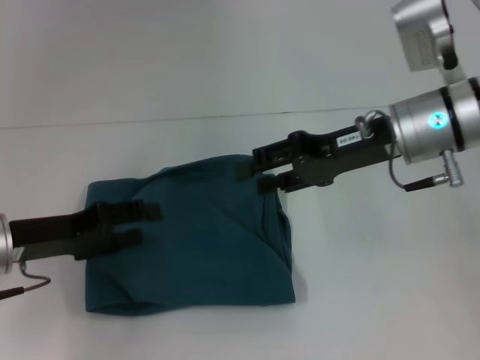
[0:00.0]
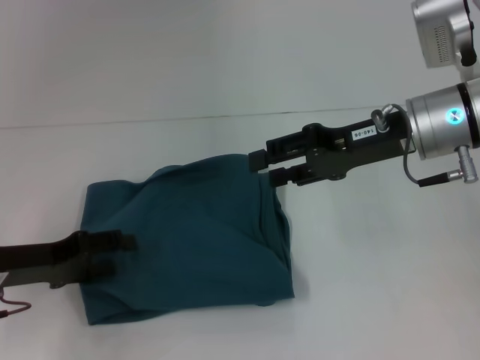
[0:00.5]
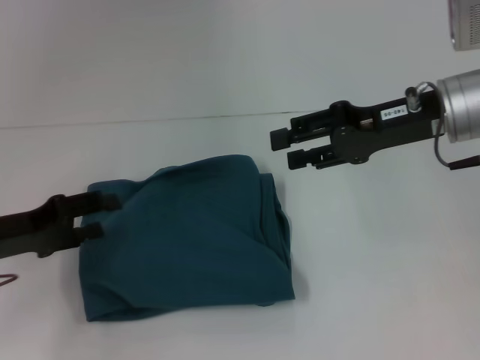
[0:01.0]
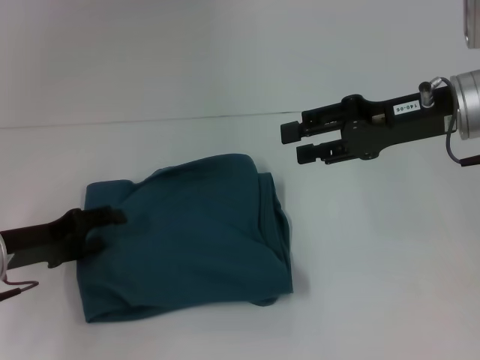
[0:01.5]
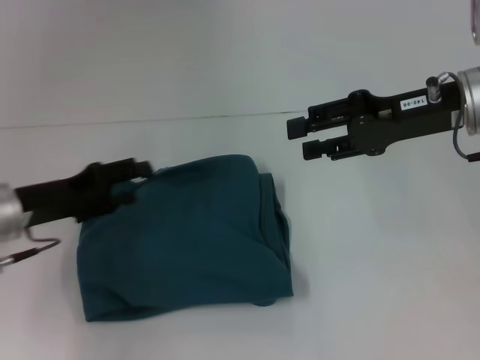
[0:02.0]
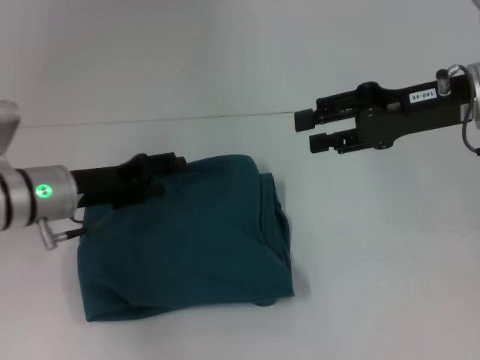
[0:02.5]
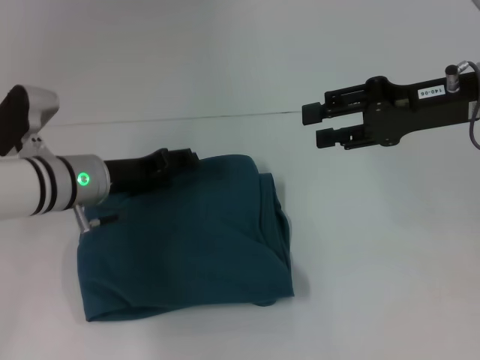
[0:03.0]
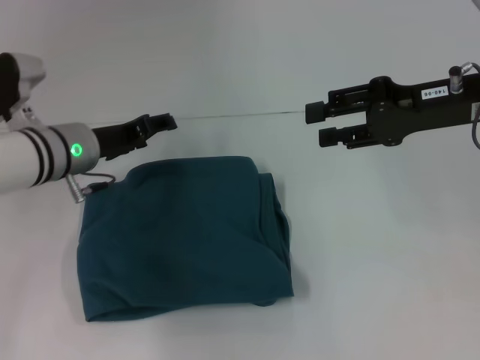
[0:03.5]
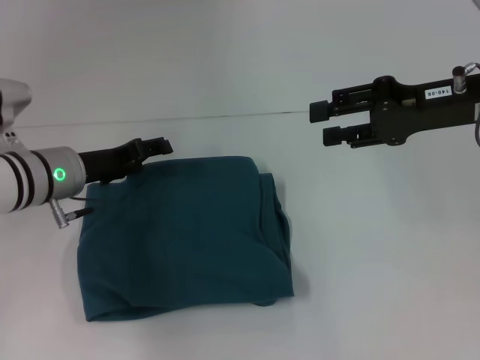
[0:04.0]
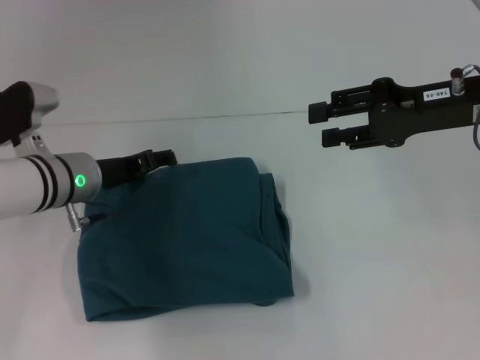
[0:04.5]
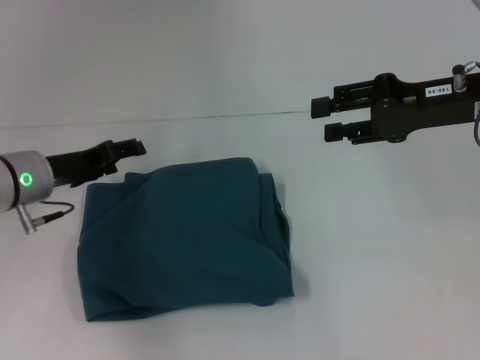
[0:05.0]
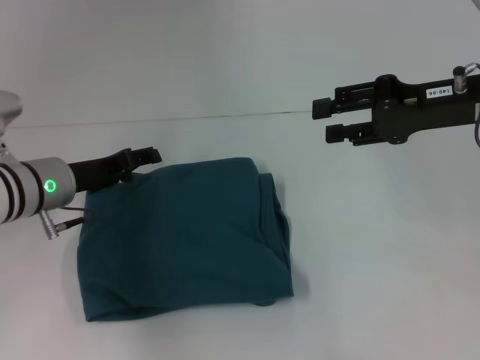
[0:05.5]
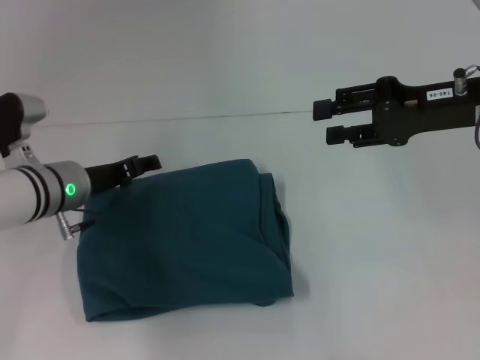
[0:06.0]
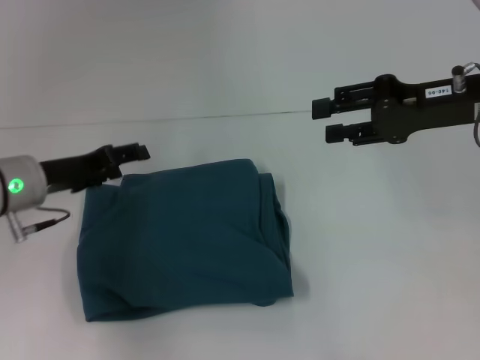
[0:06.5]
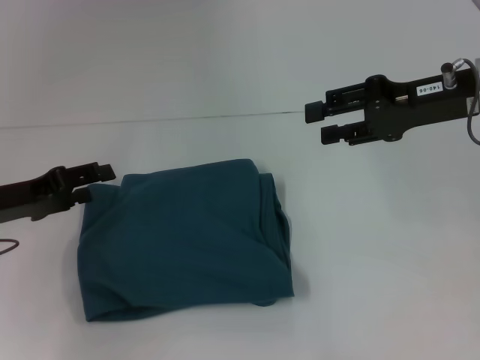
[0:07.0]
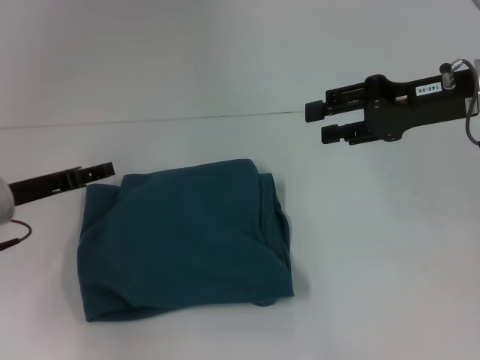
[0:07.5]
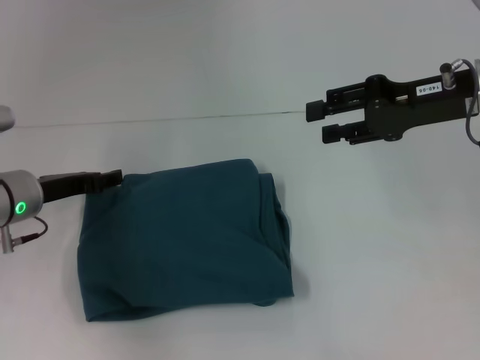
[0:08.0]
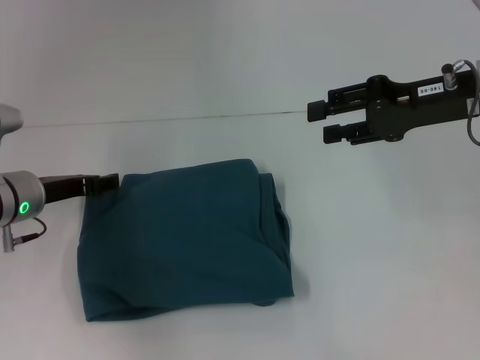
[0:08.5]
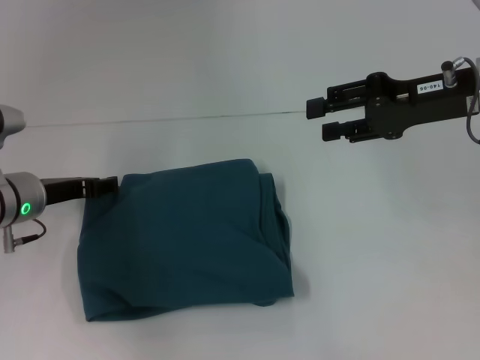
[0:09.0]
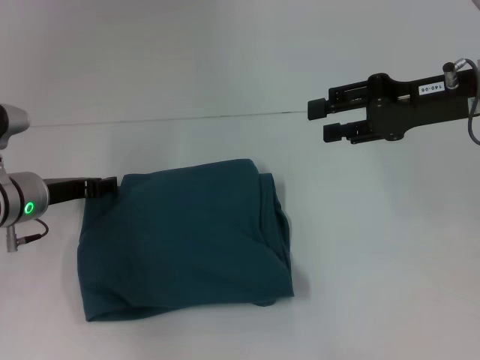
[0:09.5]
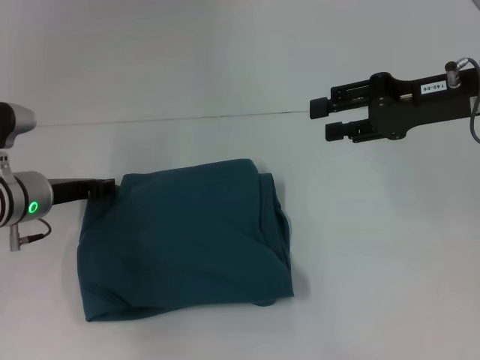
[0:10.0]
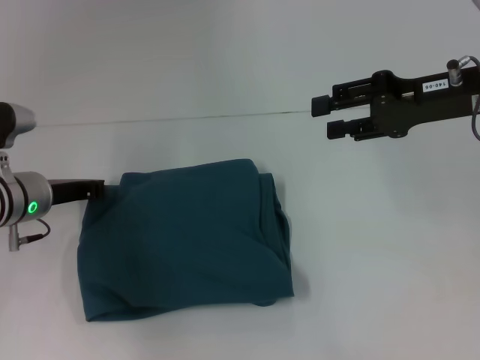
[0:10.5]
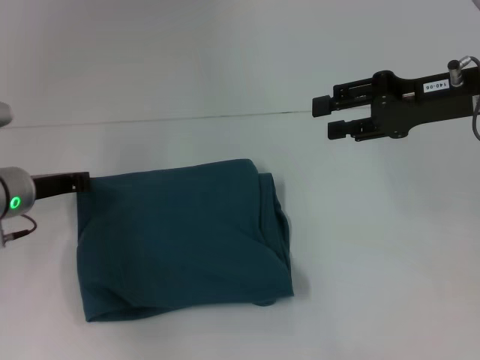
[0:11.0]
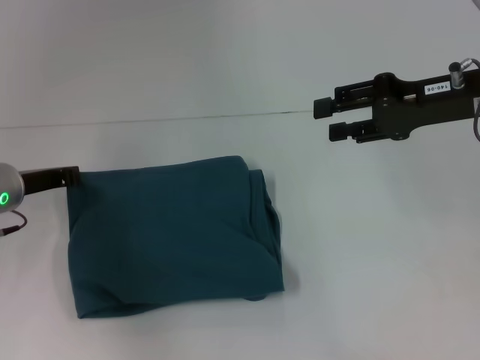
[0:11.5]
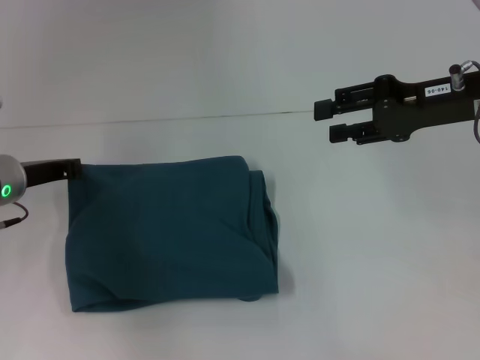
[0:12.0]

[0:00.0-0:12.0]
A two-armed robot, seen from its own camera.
0:00.0 to 0:02.0: The right gripper heads to the right, covering roughly 5 cm.
0:02.0 to 0:04.0: The left gripper moves forward and to the right, roughly 10 cm.
0:04.0 to 0:06.0: The grippers stay close to where they were, moving slightly.
0:08.0 to 0:10.0: The grippers stay close to where they were, moving slightly.
0:10.0 to 0:12.0: The left gripper closes up.

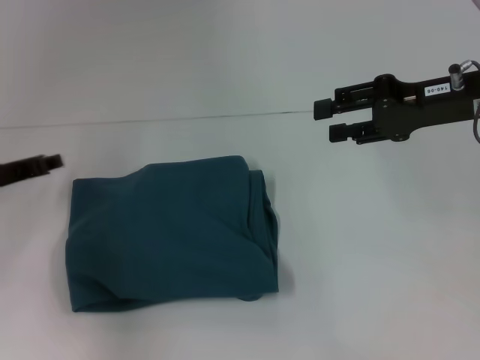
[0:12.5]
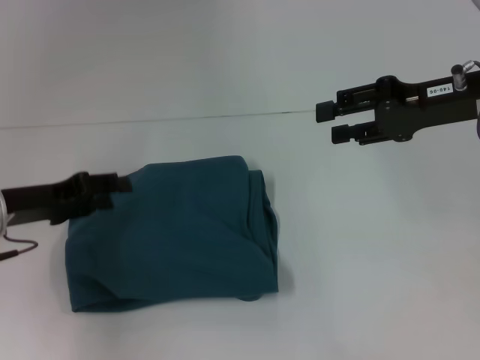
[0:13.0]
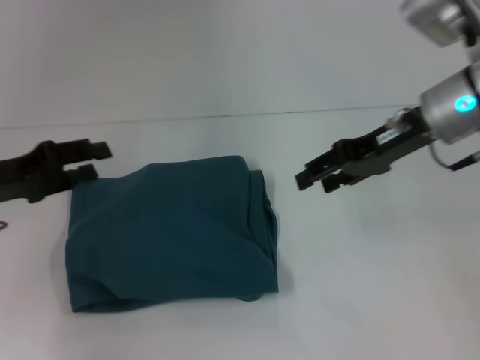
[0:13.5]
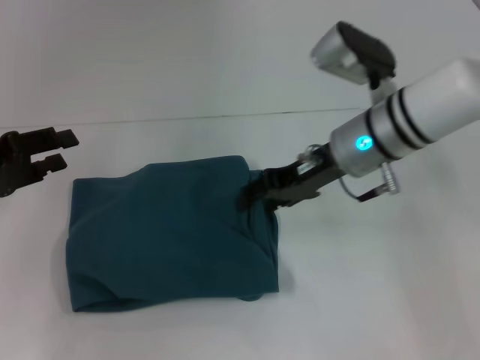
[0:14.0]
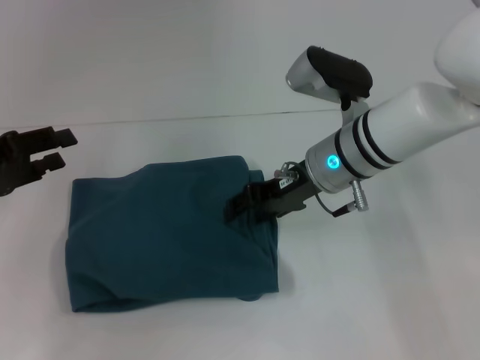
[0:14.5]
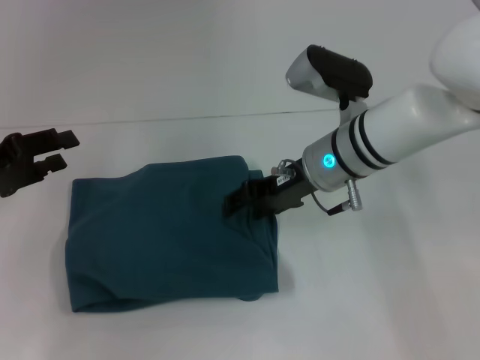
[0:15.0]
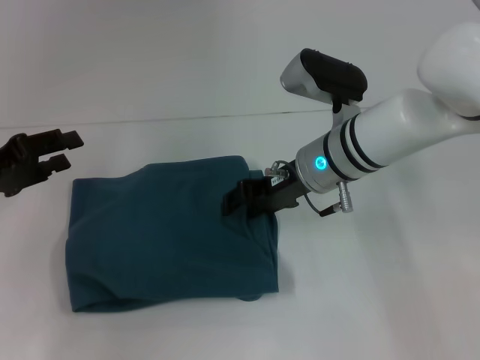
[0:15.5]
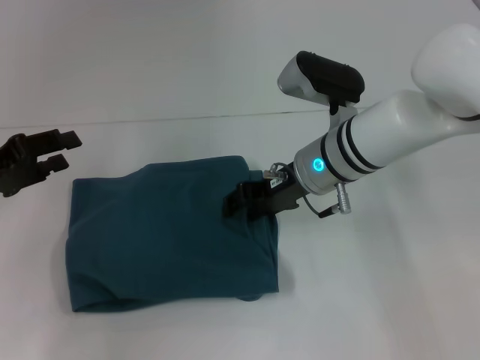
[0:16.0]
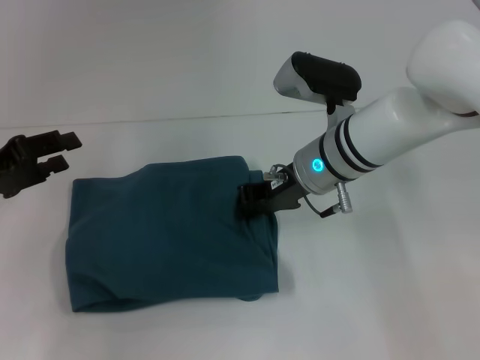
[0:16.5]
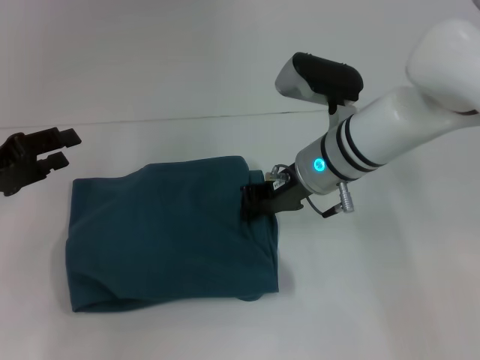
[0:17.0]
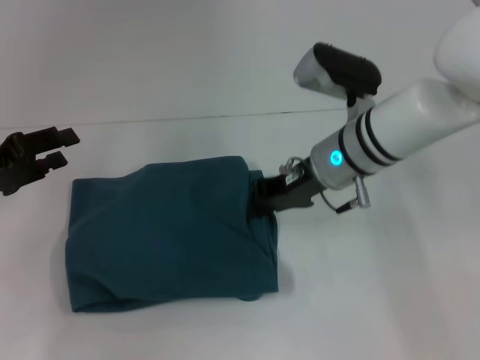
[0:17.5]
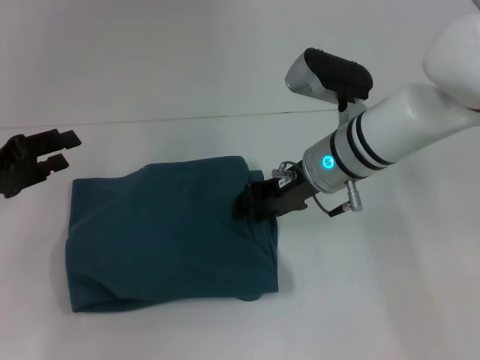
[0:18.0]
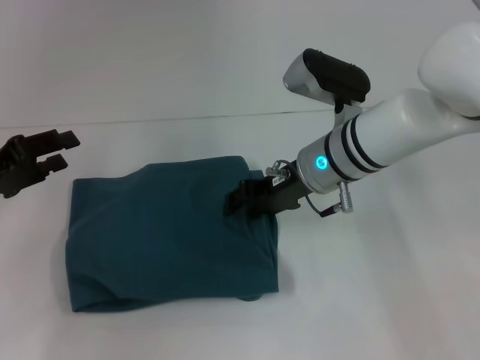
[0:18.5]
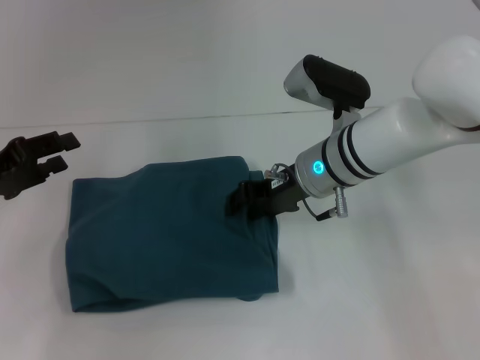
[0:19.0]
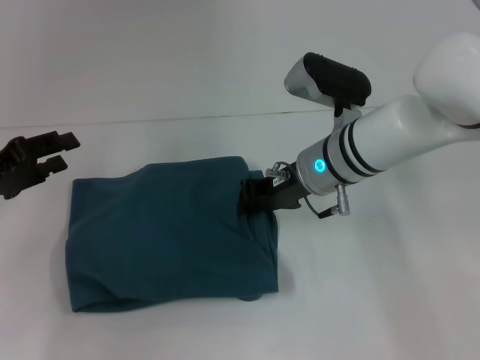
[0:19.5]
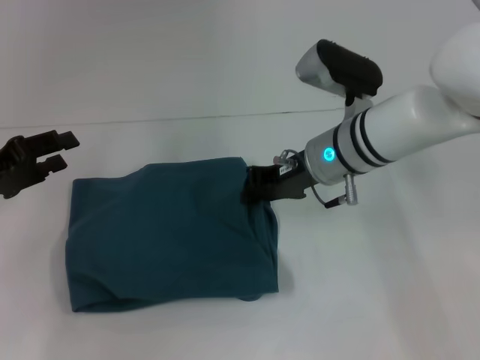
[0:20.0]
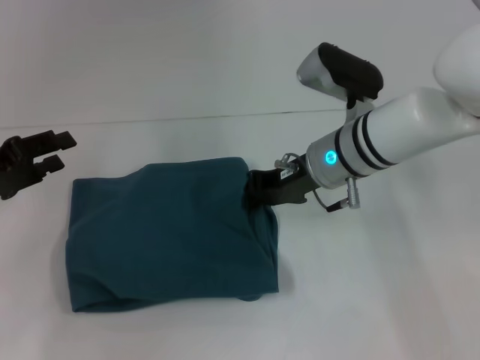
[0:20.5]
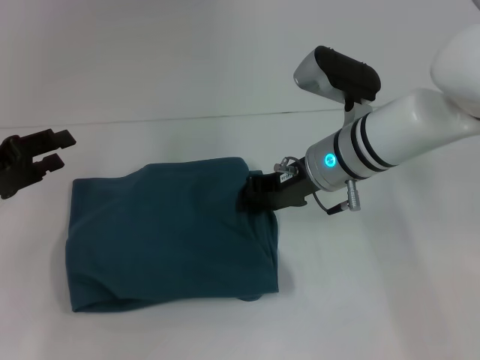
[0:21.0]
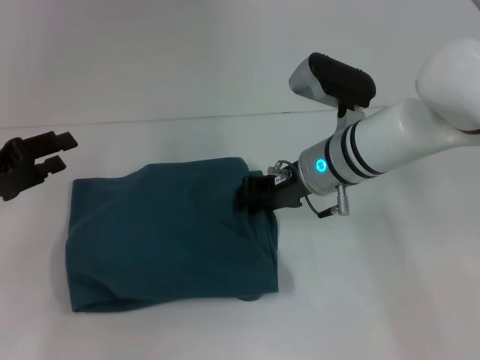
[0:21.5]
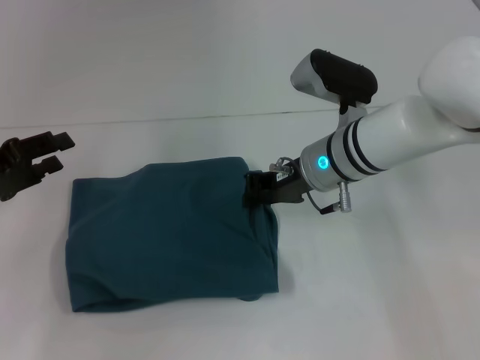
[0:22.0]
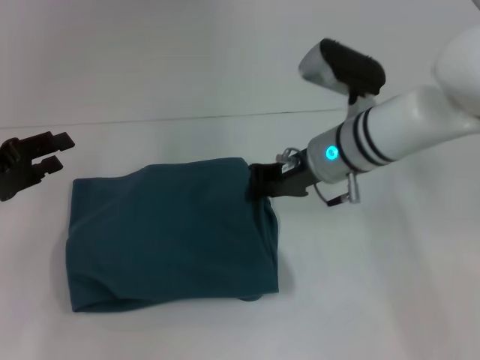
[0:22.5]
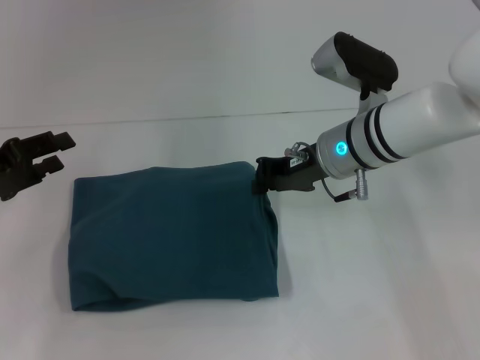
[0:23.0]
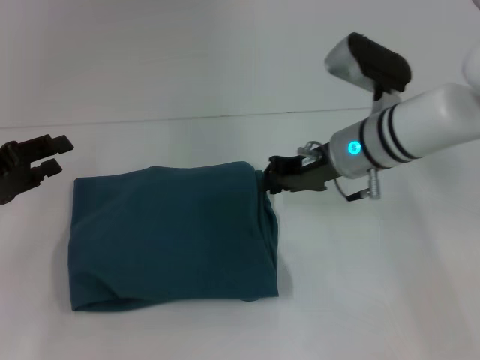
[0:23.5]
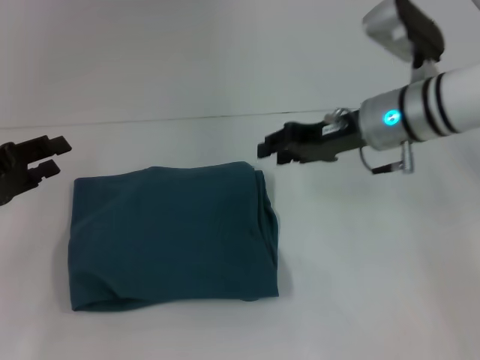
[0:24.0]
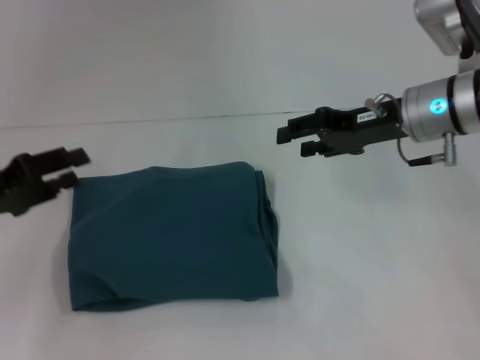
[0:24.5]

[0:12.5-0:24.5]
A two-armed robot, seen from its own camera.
0:12.5 to 0:14.5: The left gripper shifts by about 5 cm, and opens up. The right gripper travels to the left and downward by about 15 cm.
0:14.5 to 0:16.5: The right gripper closes its fingers.
0:16.5 to 0:18.5: The grippers make only small movements.
0:18.5 to 0:20.5: The right gripper closes up.
0:20.5 to 0:22.5: Both grippers stay about where they are.
0:22.5 to 0:24.5: The right gripper travels to the right by about 10 cm, and opens up.

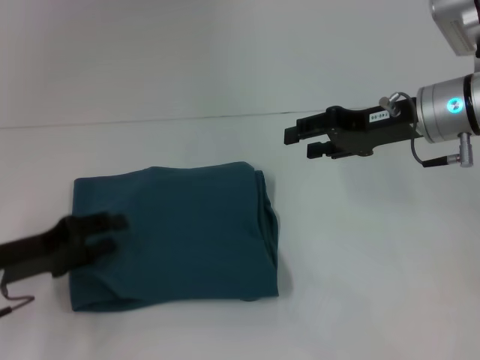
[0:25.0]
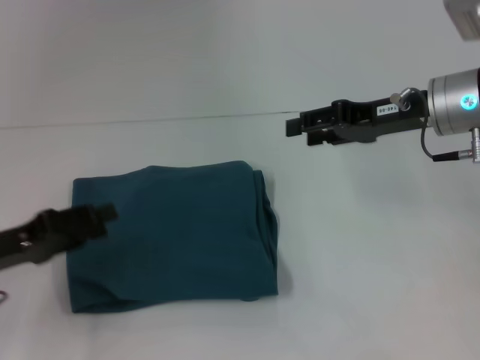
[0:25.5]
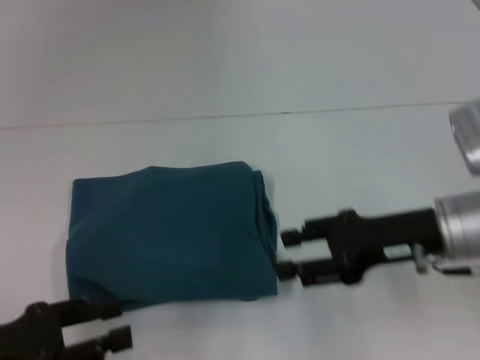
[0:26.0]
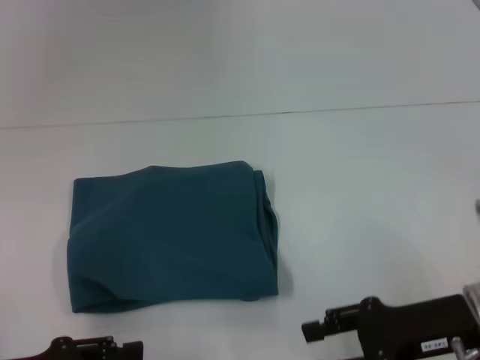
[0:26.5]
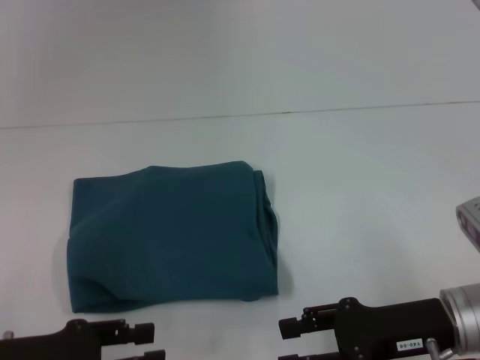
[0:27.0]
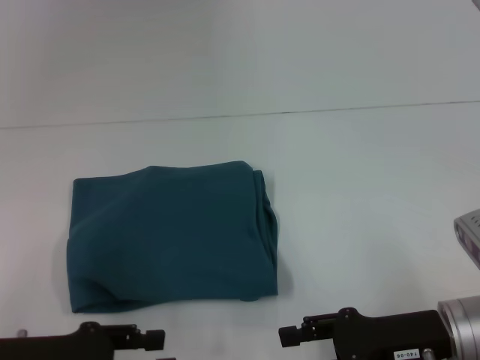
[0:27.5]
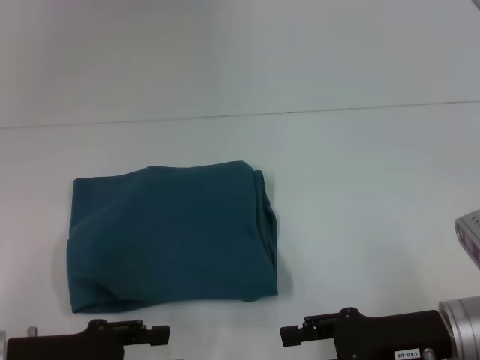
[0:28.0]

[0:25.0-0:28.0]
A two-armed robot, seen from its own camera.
0:25.0 to 0:26.5: The right gripper moves backward and downward, about 20 cm. Meanwhile the left gripper goes roughly 10 cm backward.
0:26.5 to 0:28.0: The grippers move only a little.
